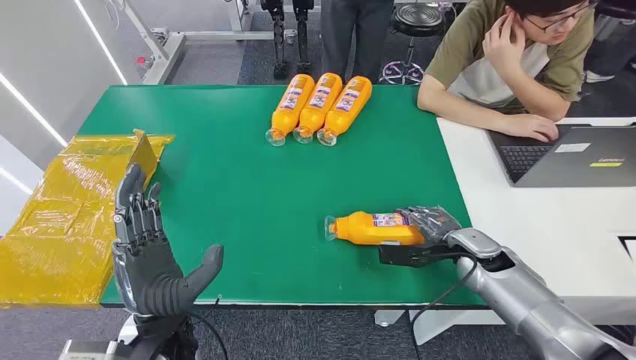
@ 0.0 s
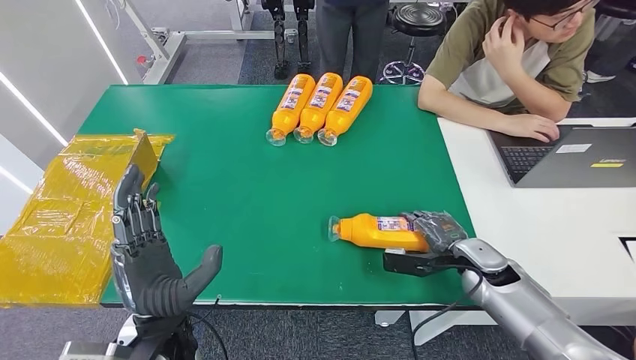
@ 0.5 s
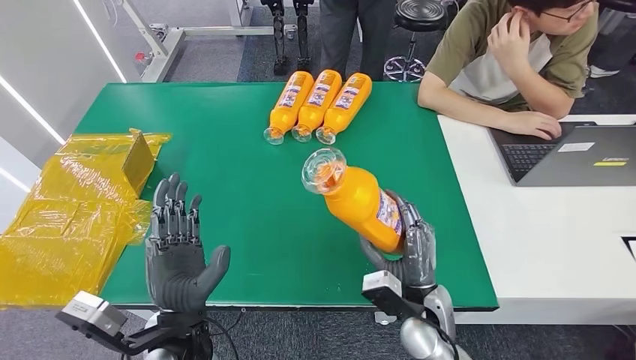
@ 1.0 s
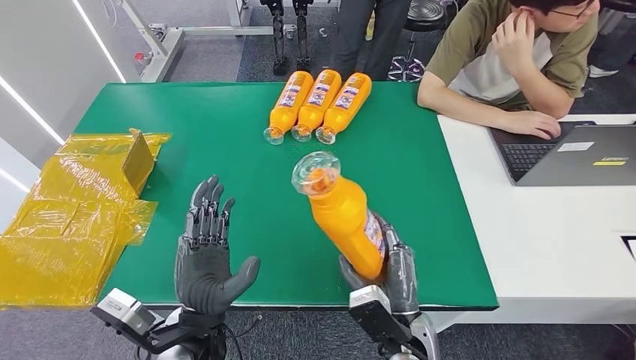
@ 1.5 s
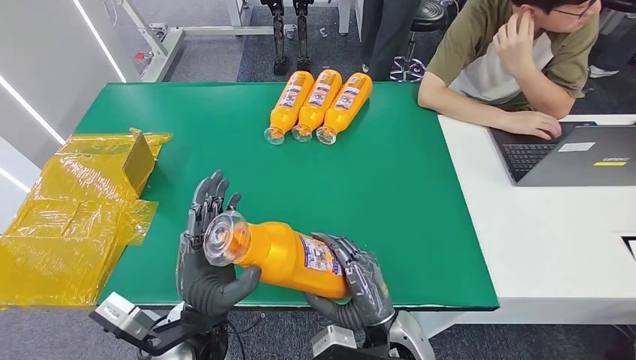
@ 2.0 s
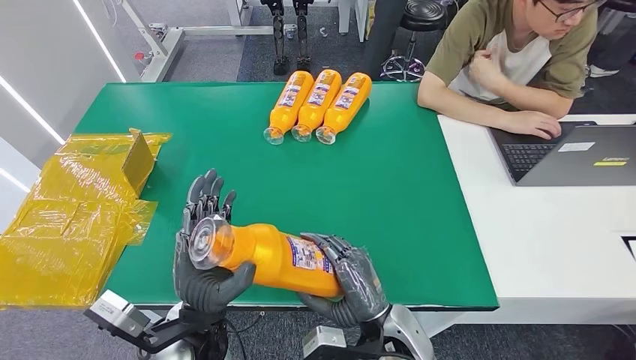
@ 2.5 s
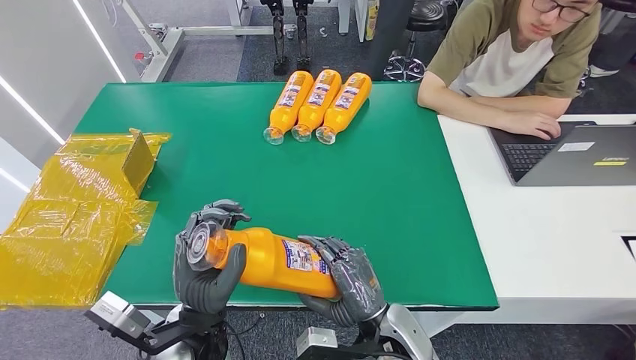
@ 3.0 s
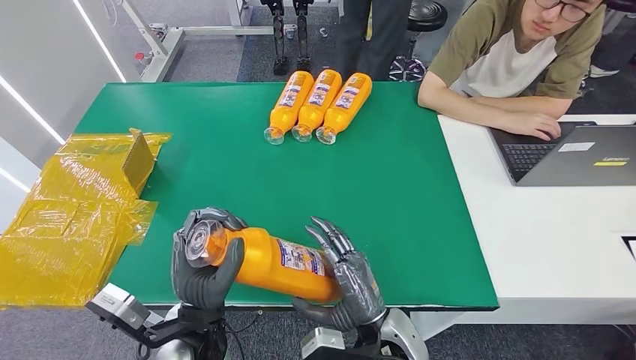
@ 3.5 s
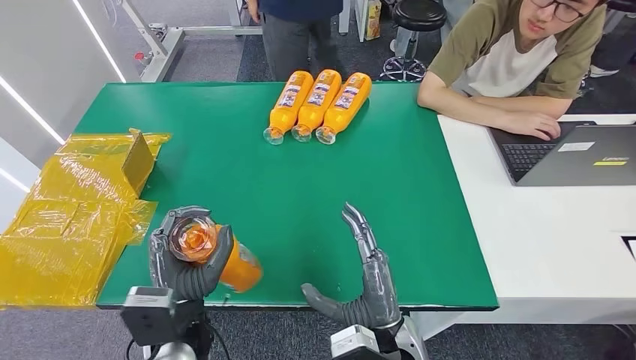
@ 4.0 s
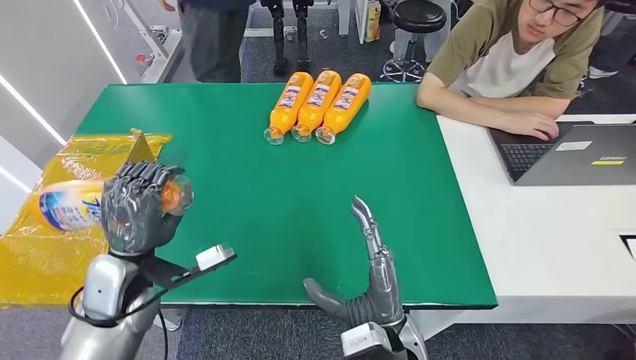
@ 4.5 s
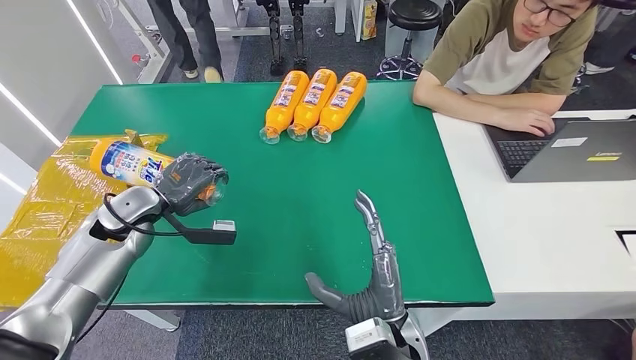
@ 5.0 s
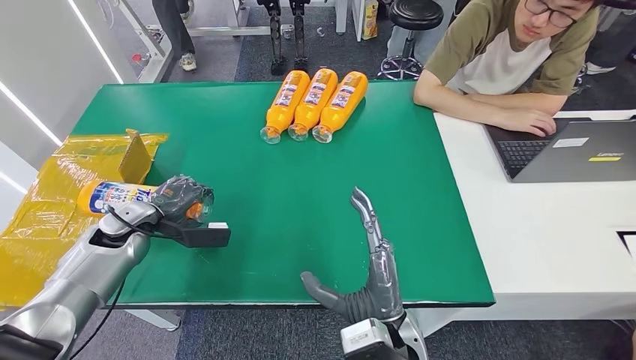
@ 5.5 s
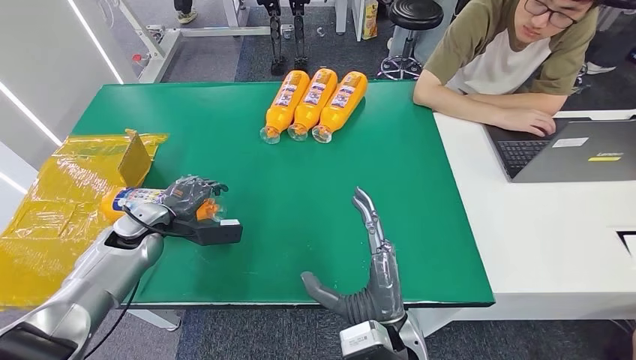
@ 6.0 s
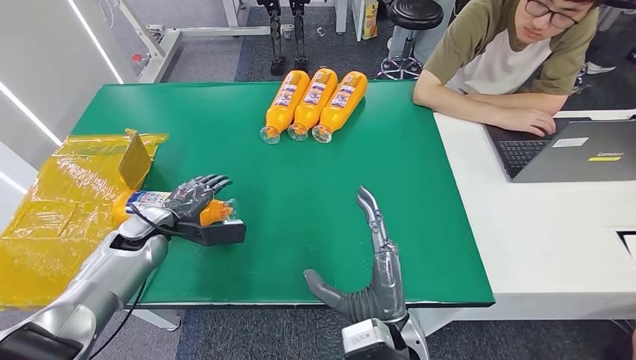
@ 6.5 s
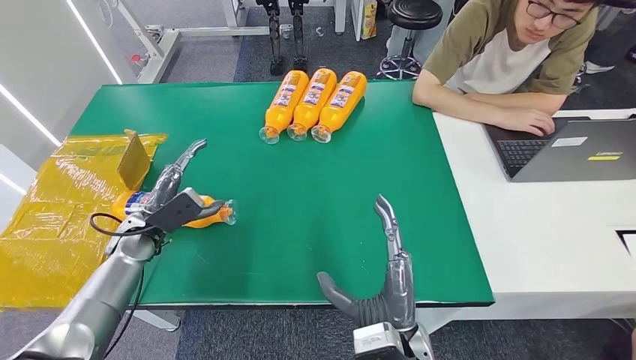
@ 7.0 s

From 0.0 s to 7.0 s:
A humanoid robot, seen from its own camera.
Step, from 0.0 s to 1.5 s: Pick up the bottle from the table.
Step, from 2.0 s to 7.0 s: Turn the bottle to the front side.
From 2.0 s to 3.5 s: There are only small adjustments of the hands.
From 5.0 s to 7.0 s: The left hand travels downward by some 5 cm.
